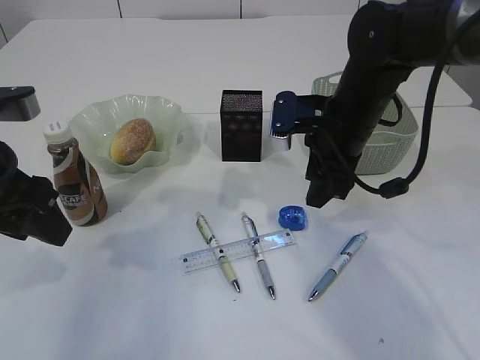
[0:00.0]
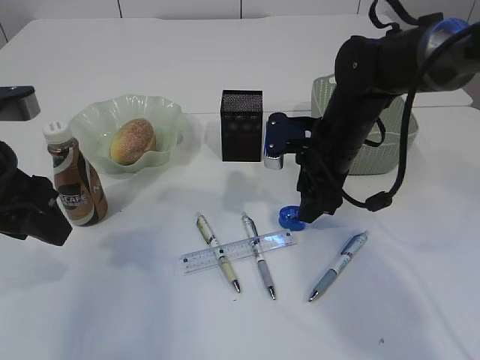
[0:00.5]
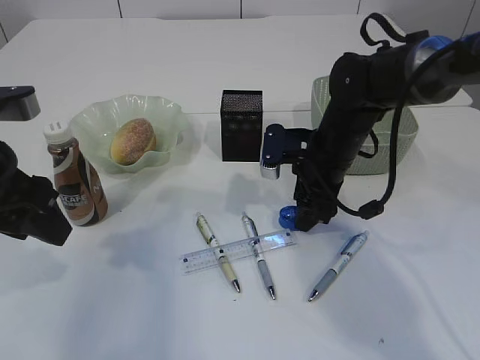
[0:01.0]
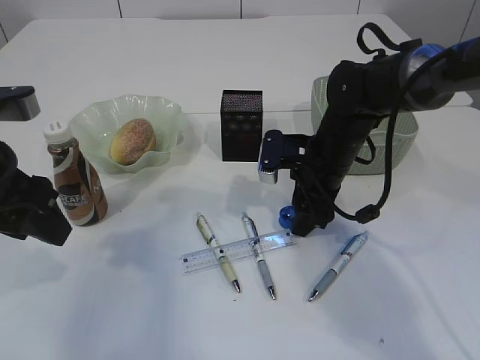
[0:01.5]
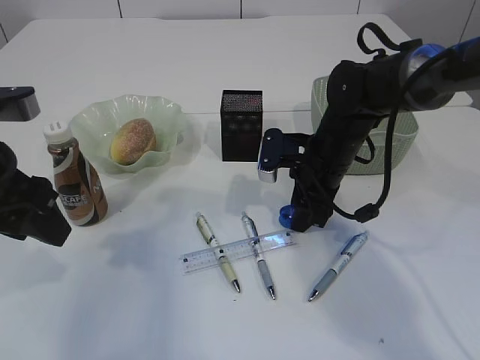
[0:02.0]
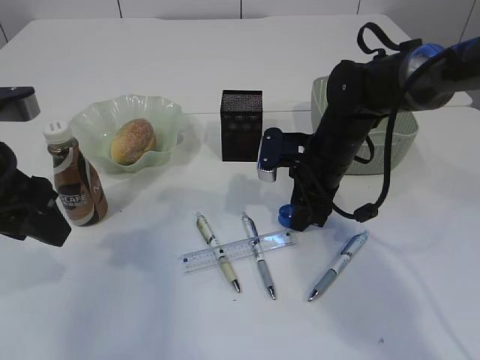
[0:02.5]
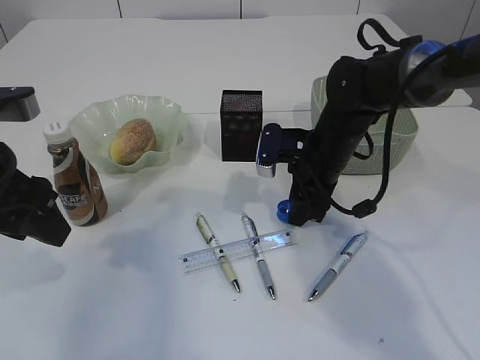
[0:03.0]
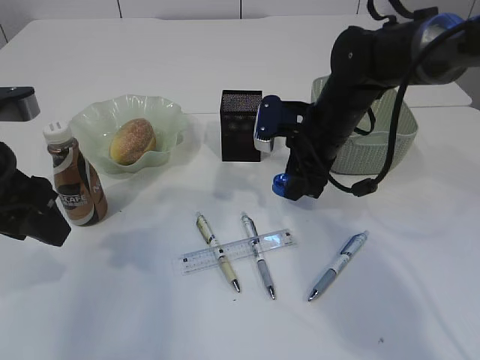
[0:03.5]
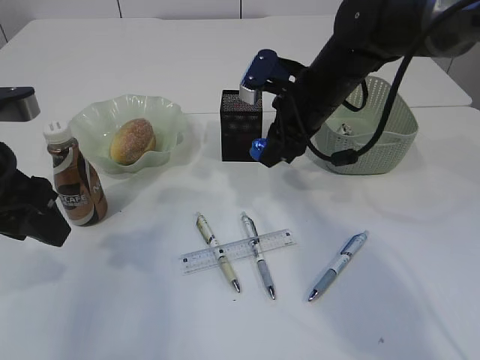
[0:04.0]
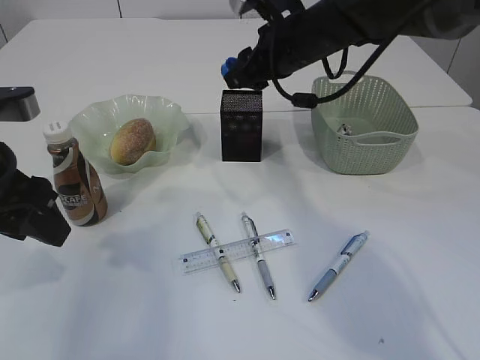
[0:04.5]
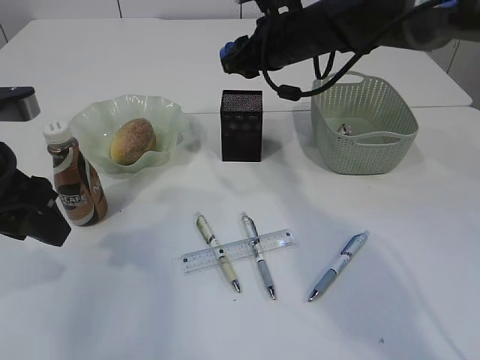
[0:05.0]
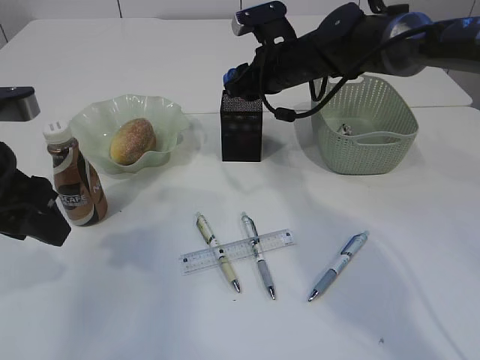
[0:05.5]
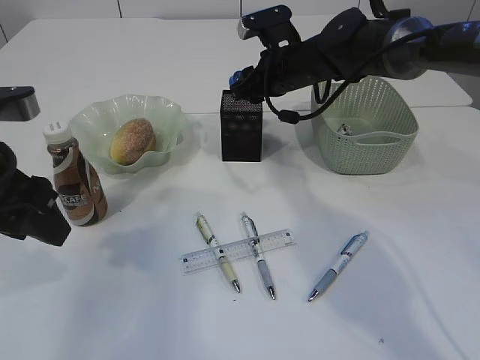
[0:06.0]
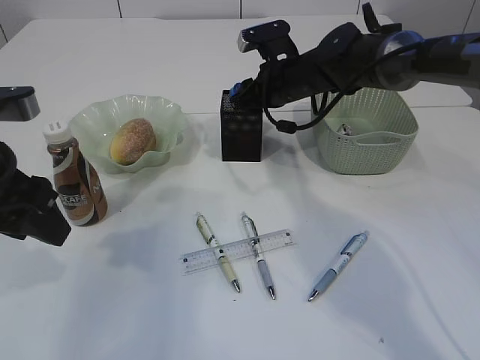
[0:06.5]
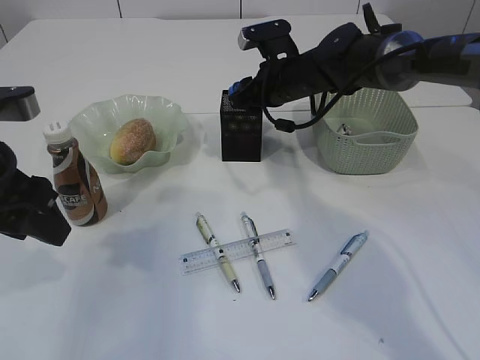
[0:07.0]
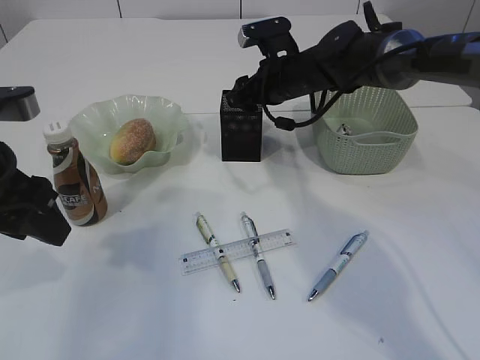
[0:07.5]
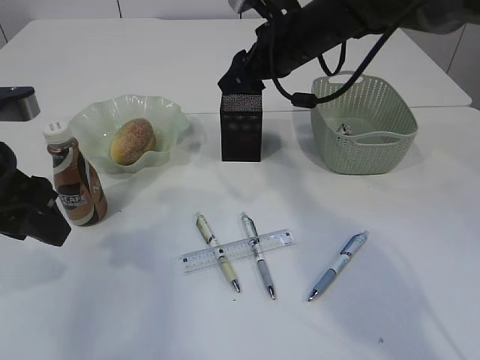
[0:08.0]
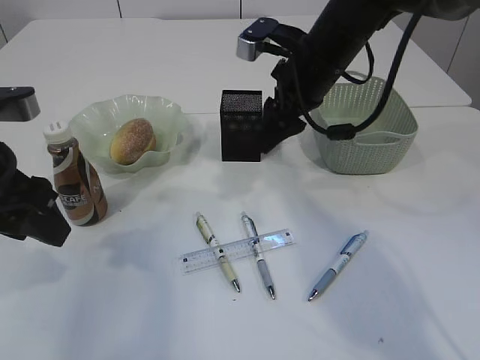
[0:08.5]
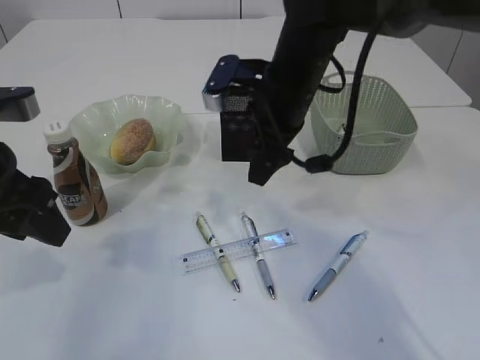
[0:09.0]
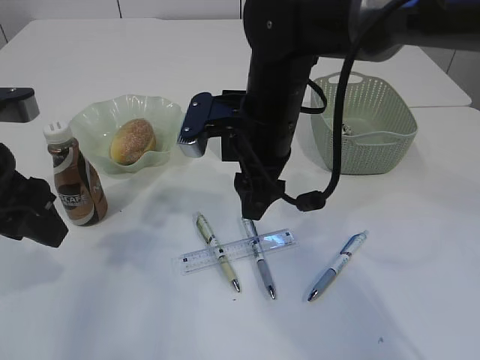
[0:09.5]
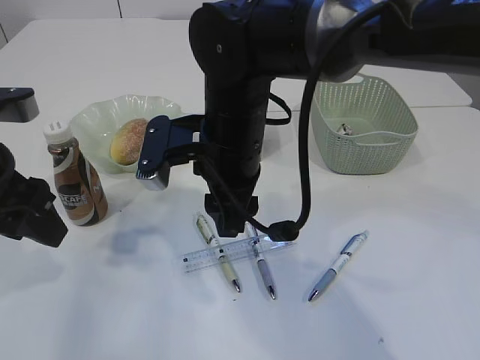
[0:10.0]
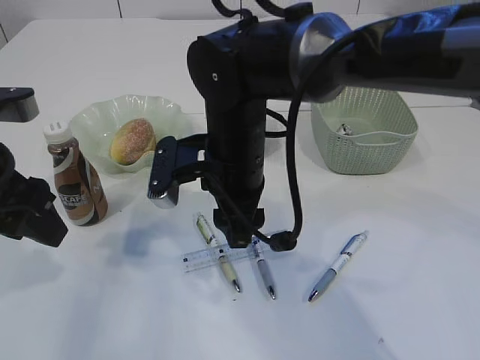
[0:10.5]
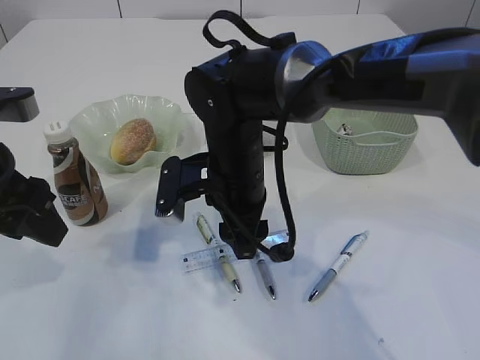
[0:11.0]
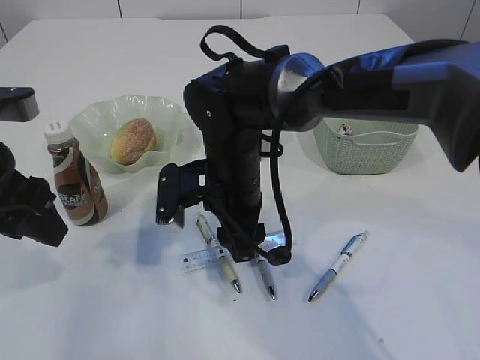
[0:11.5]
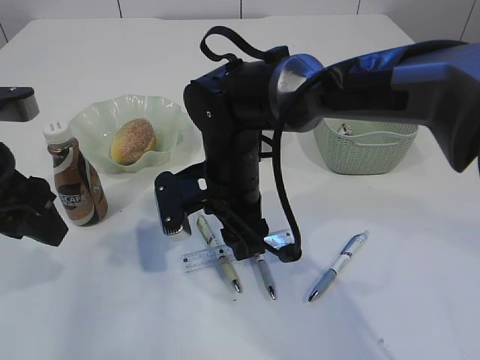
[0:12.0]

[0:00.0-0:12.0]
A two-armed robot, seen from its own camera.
Step, 0.0 to 3.5 s: Pick up the blue pencil sharpener.
Step, 4.0 to 8.5 s: Place the blue pencil sharpener into the pen holder.
0.0 to 2.0 s: The right gripper goes roughly 5 cm downward.
2.0 to 4.0 s: The right gripper goes about 10 cm upward.
4.0 to 6.0 s: The right gripper travels forward by about 10 cm.
6.0 to 8.0 s: The right gripper shifts some 5 cm upward.
8.0 to 10.0 s: The right gripper shifts about 15 cm backward and to the left.
10.0 to 12.0 s: The right gripper heads downward, covering about 5 cm.

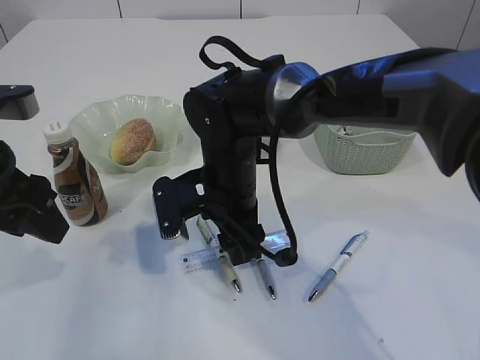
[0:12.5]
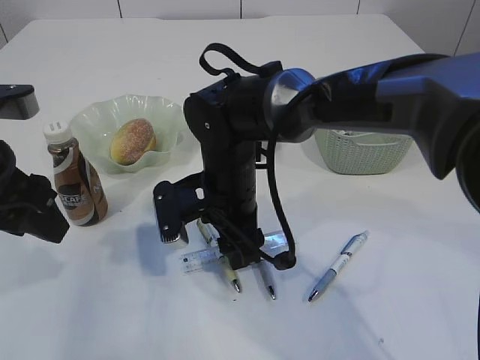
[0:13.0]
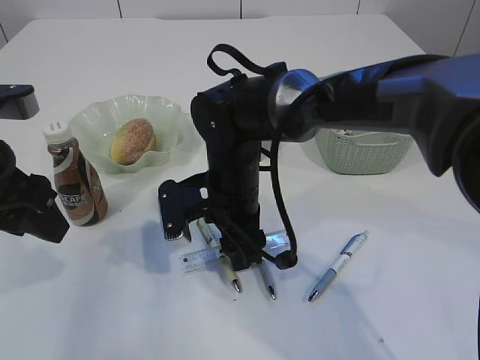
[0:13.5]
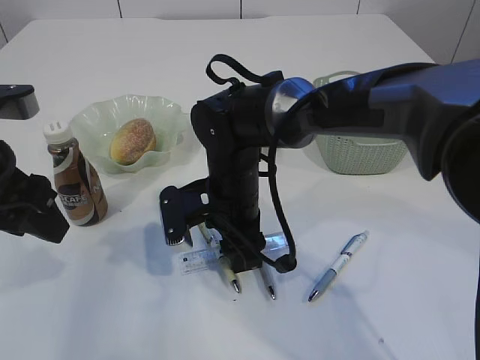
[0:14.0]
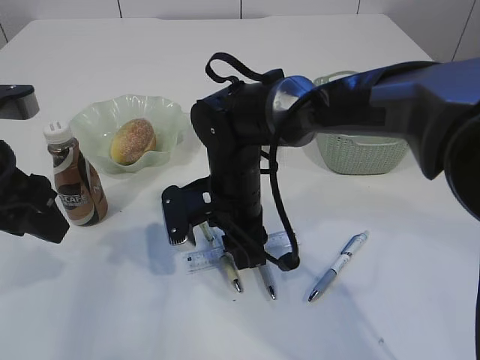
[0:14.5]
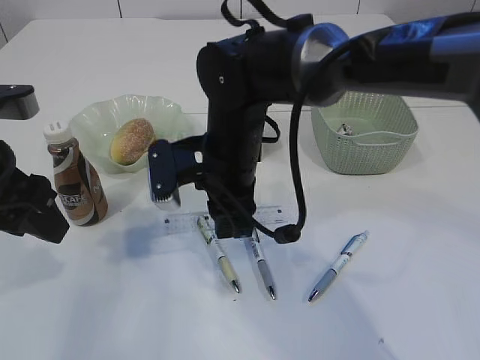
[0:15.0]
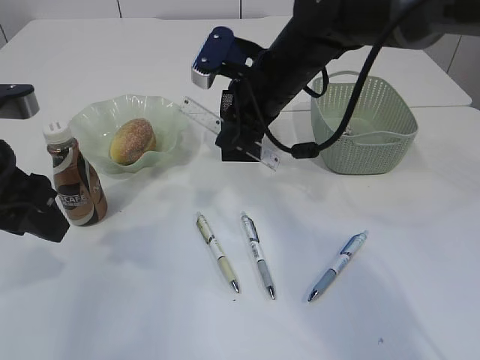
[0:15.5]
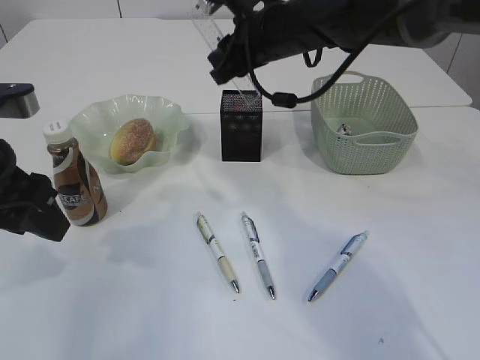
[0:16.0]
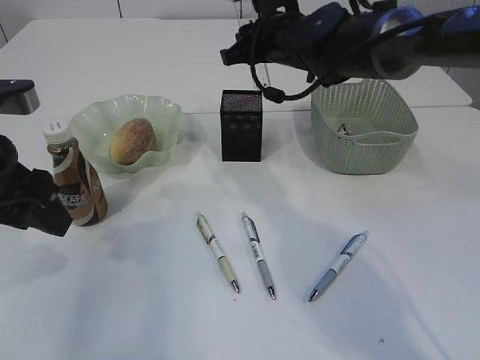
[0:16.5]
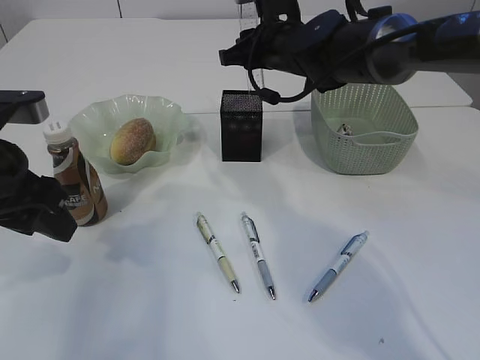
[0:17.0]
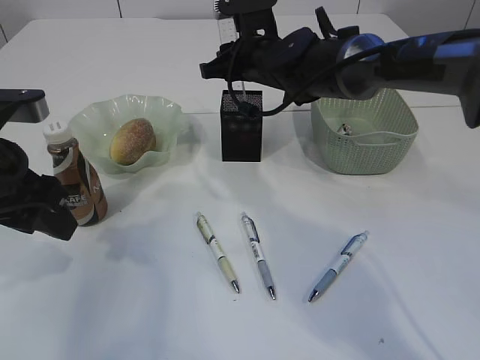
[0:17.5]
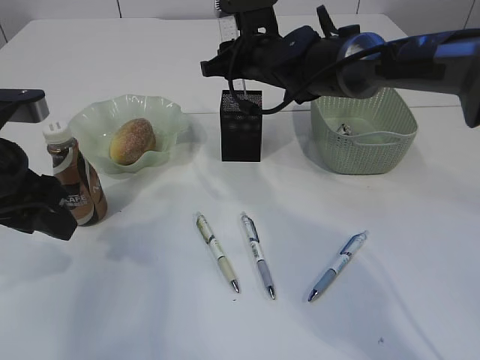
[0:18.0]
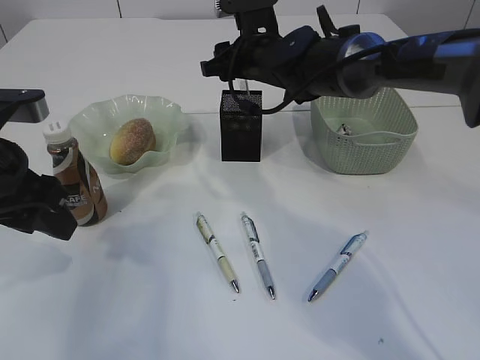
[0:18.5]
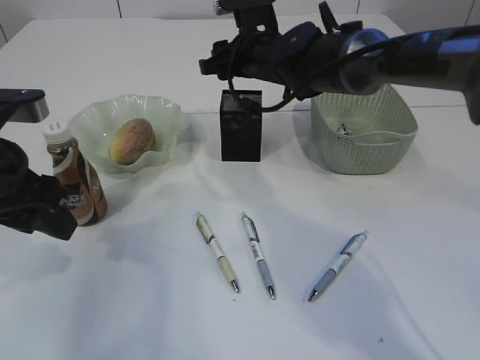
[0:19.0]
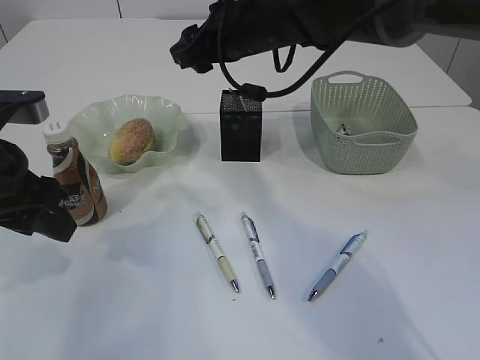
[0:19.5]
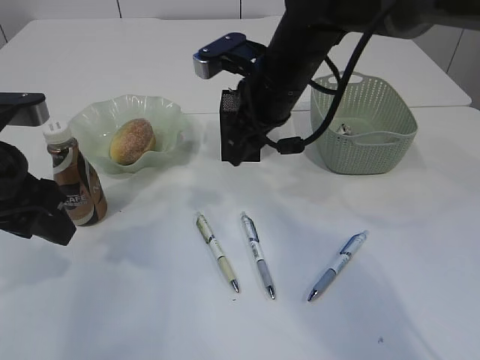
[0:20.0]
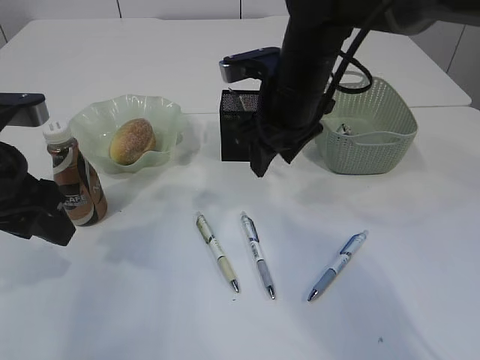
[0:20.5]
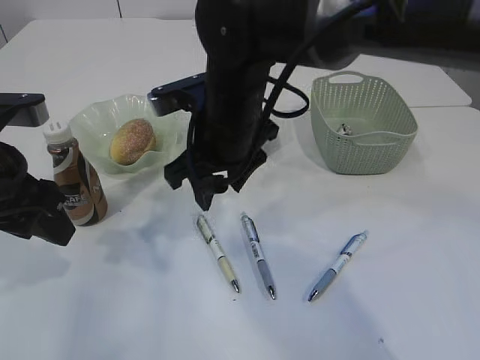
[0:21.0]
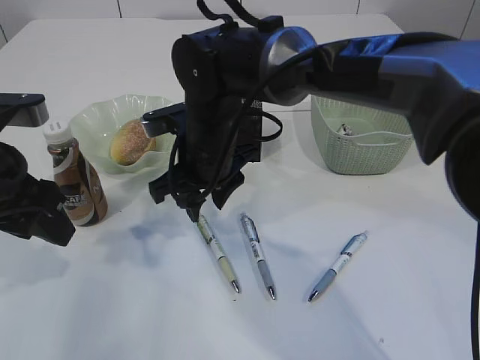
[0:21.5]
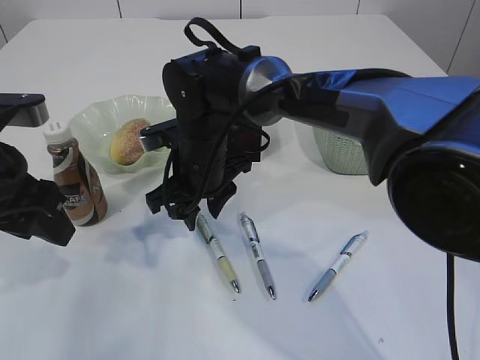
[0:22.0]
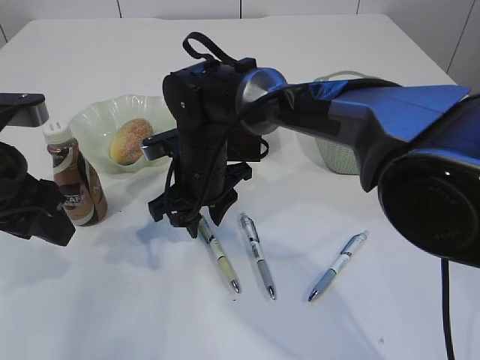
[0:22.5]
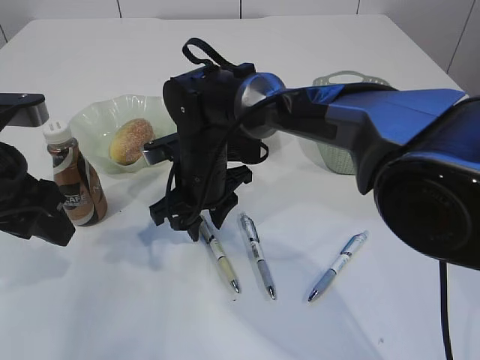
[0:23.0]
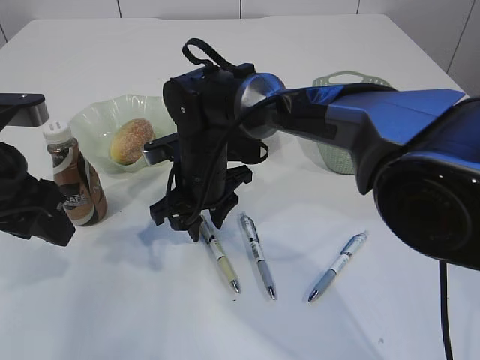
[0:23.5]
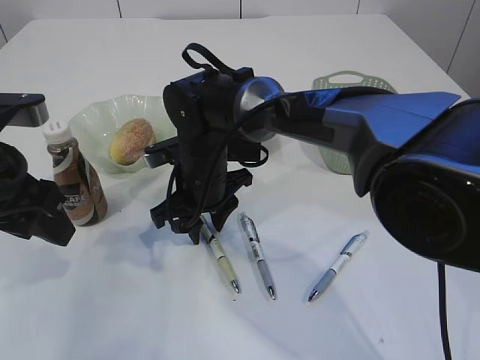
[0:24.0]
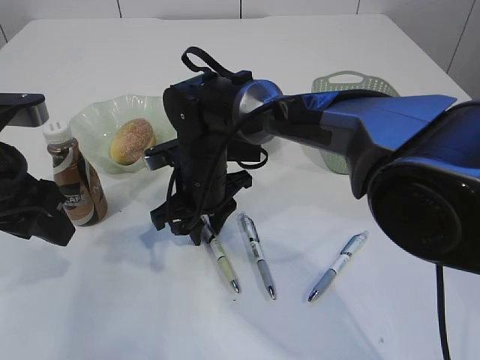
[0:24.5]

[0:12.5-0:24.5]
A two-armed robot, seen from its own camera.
Step, 12.5 to 15.0 s: pick up the ruler.
Step, 15.5 to 19.0 s: Place the ruler into the pen holder.
12.5 to 14.5 s: The right gripper closes its fingers.
14.5 to 16.5 s: The right gripper travels forward, upward and to the right by about 20 cm.
16.5 to 18.5 s: The right gripper opens.
18.5 to 20.5 s: The right gripper is displaced backward by roughly 10 cm.
20.5 to 22.5 s: The right gripper heads to the left and downward, covering some 15 cm.
22.5 to 24.5 s: The grippers move only a little.

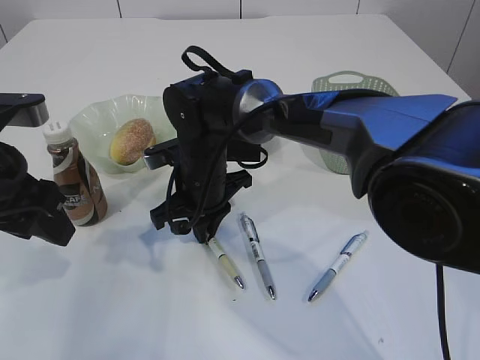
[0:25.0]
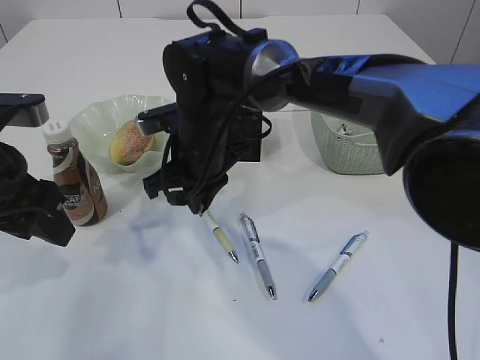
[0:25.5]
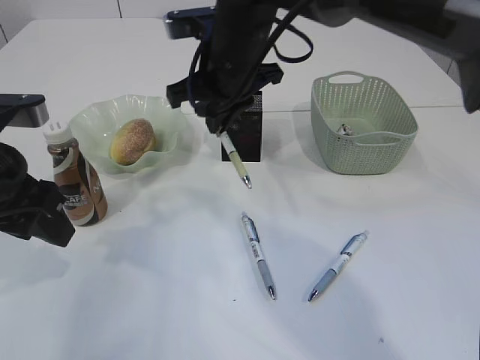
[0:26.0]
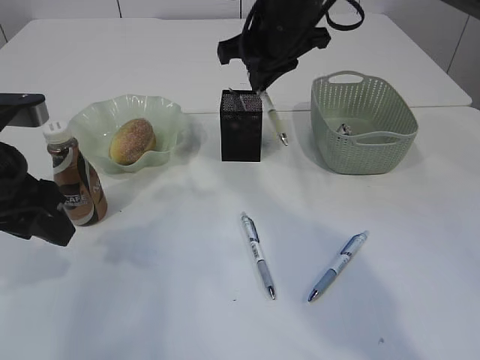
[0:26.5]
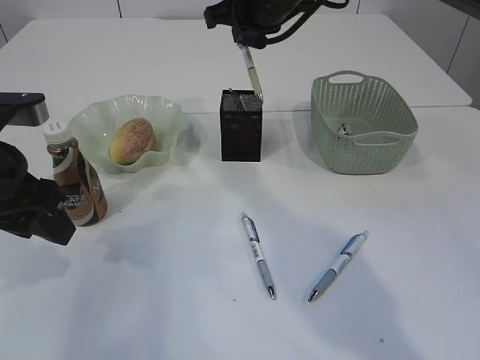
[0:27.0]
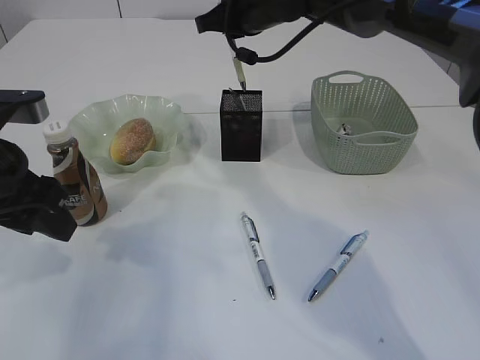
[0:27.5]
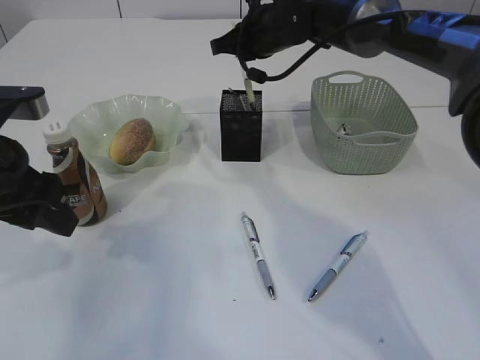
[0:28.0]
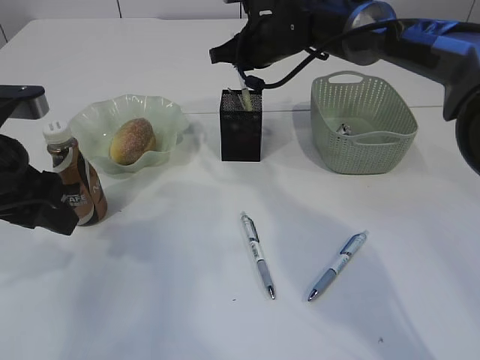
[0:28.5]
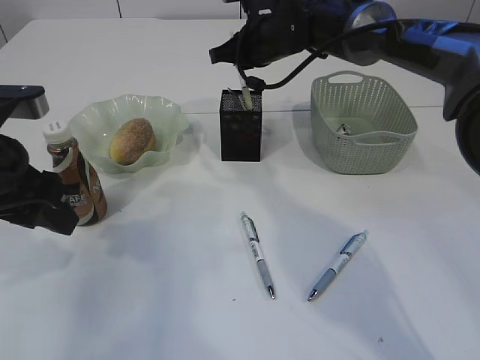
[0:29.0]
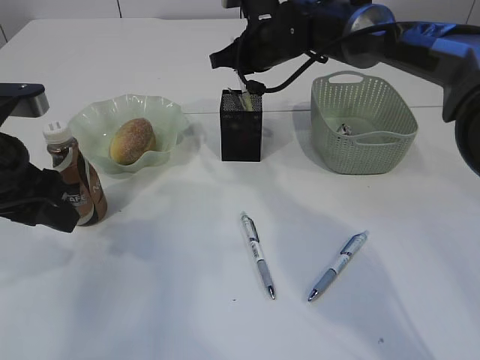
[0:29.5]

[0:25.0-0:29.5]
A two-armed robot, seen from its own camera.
25.0 to 27.0 s: The right gripper heads upward, to the right and forward, covering about 20 cm.
27.0 to 29.5 s: The right gripper is displaced downward and forward by roughly 10 cm.
